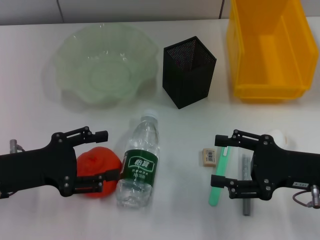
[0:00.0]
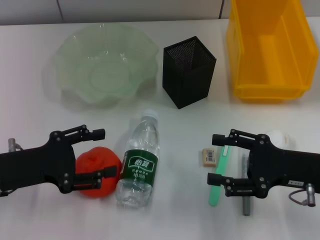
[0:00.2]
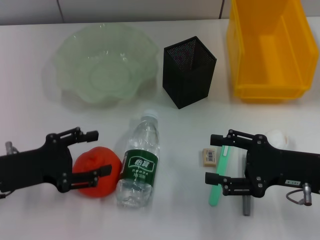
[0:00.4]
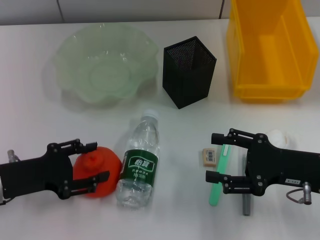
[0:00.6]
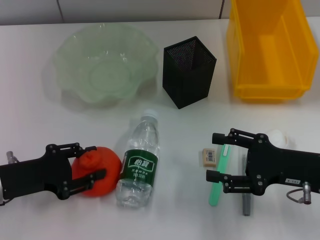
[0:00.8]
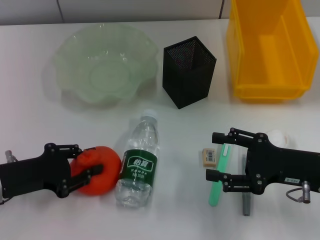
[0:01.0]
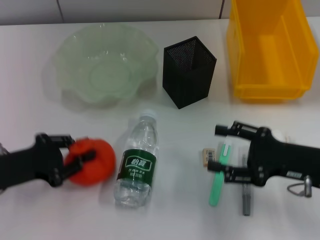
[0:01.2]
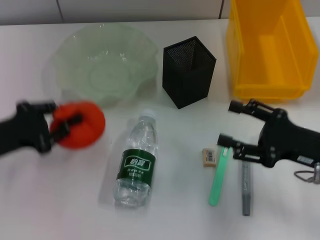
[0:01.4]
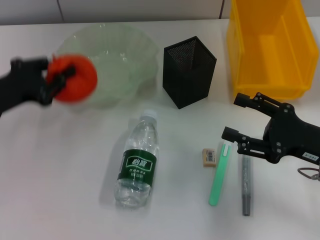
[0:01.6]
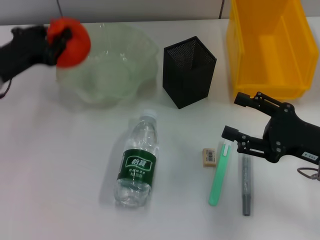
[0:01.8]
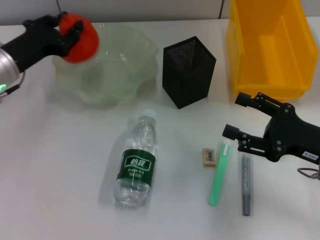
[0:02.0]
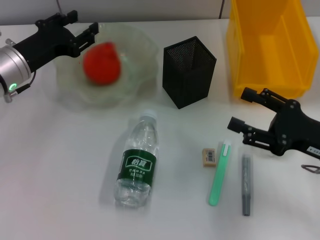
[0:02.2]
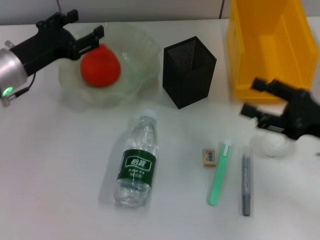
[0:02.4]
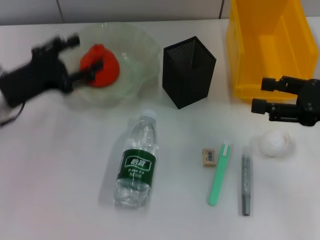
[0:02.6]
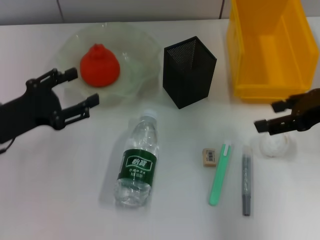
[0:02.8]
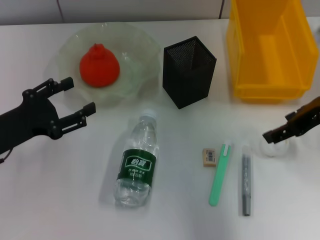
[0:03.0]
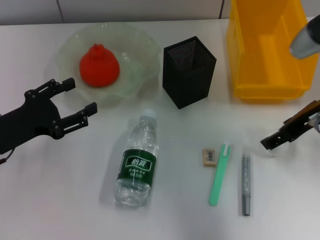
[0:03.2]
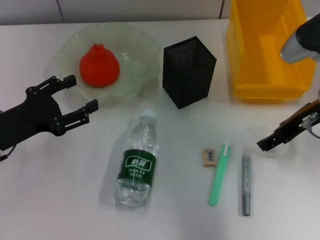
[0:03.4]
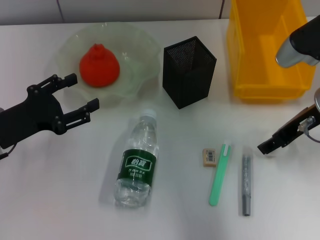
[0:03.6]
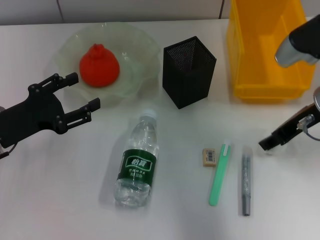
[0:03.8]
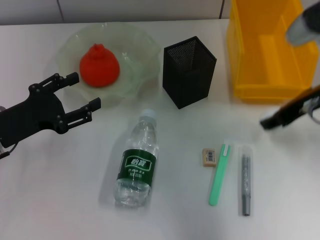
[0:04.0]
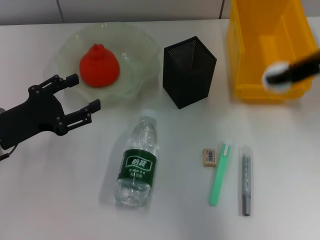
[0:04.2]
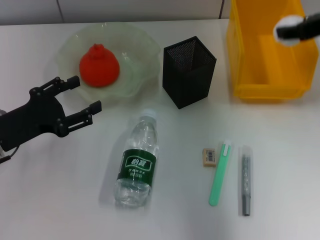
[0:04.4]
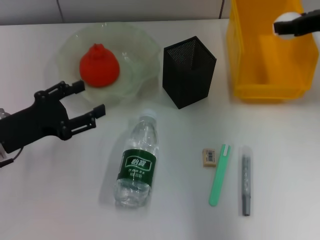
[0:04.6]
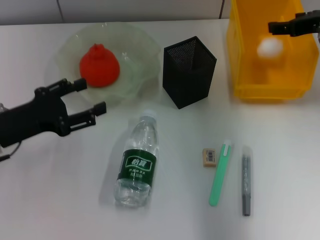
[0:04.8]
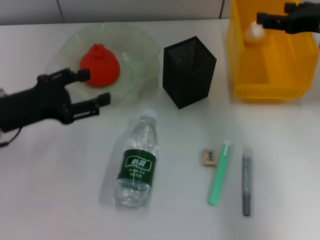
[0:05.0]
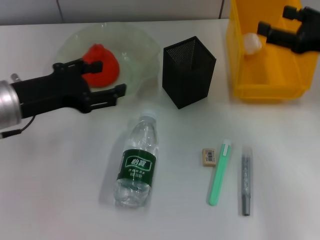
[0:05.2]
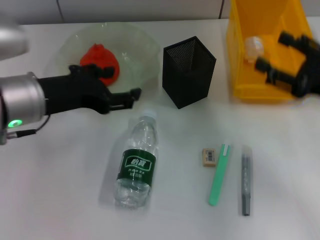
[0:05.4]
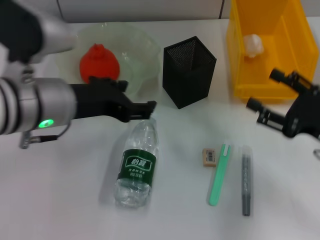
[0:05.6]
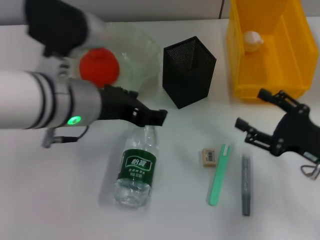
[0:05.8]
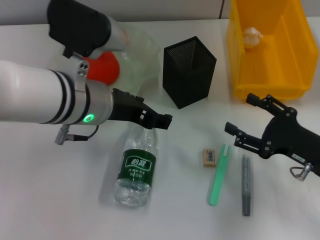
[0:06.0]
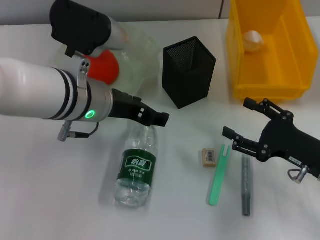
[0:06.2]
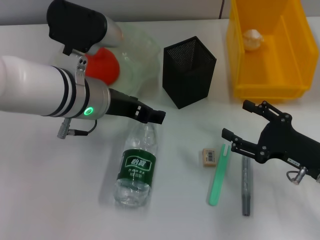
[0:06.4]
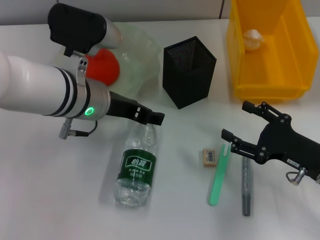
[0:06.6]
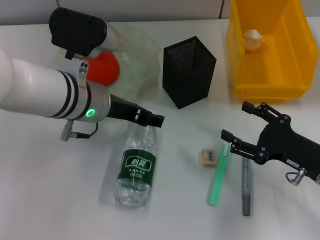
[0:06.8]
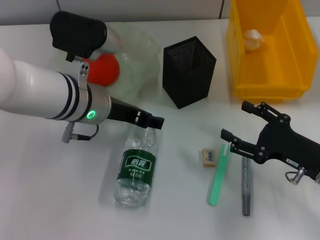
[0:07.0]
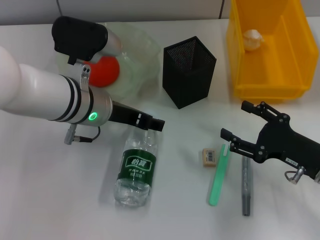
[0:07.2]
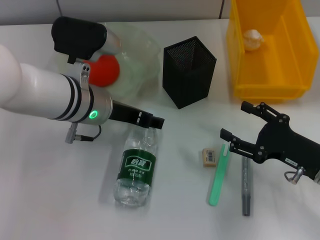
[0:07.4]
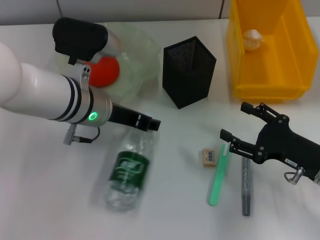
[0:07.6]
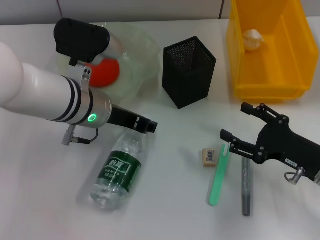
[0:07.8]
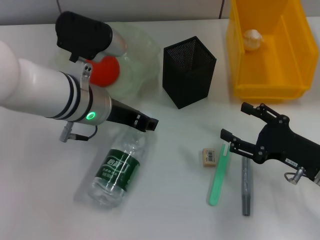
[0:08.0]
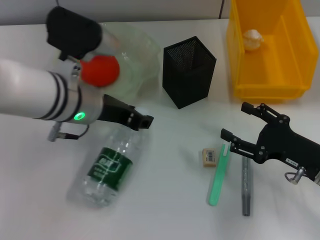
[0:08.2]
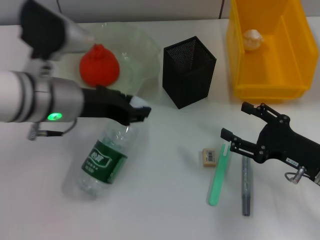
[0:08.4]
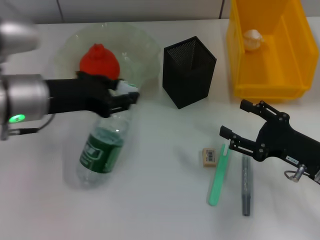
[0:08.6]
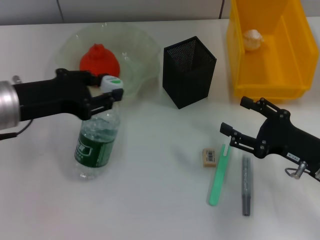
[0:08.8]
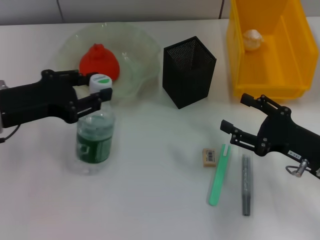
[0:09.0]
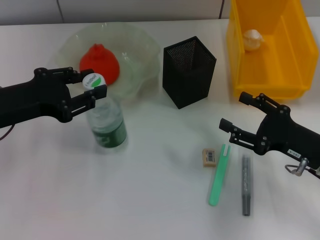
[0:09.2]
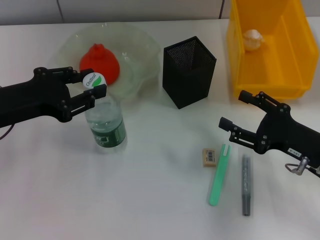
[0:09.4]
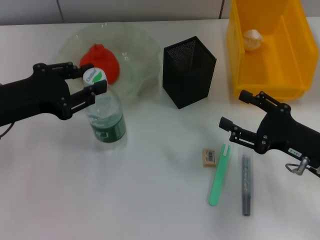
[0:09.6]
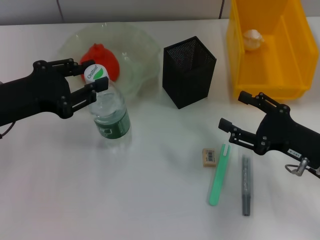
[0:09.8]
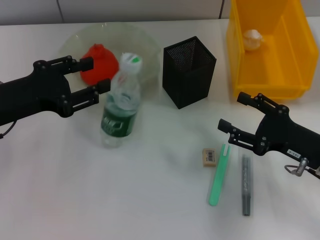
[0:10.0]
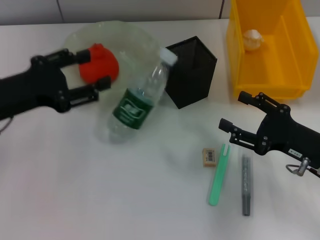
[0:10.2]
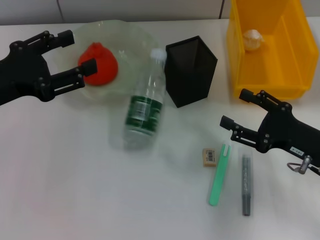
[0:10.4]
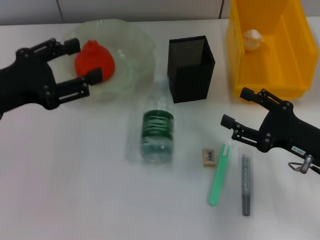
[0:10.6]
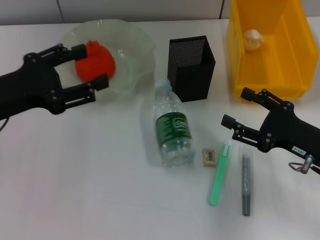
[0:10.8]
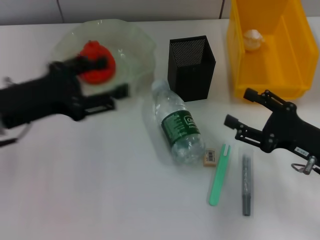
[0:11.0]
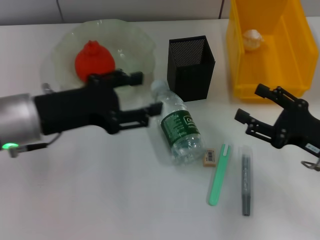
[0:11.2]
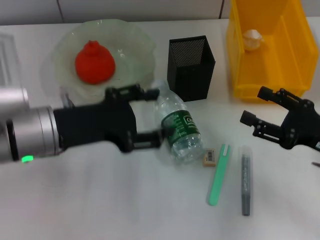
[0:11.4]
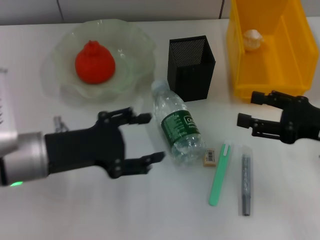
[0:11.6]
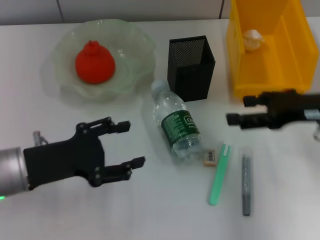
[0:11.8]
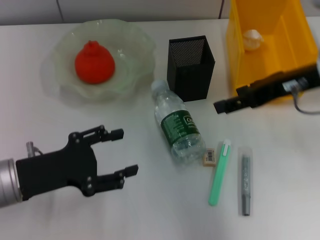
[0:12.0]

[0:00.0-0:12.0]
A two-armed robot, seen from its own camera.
Step, 0.0 to 0.8 s: Grab the orange with the left hand.
Step, 1.0 to 2.4 s: Place the orange into the fruit bowl with the left hand.
Step, 2.6 to 3.6 s: Grab the paper ball with the right hand.
Step, 3.8 to 4.8 s: Place the paper ball into the trash can with the right hand.
0.0 to 1.6 s: The left gripper shifts roughly 5 cm forward, and closes its fingers.
1.6 to 3.0 s: The right gripper shifts about 15 cm upward and forward. Meanwhile the left gripper moves some 5 cm forward and comes back, and opens up.
3.0 to 4.4 s: The right gripper heads upward, covering roughly 5 cm, and closes up.
4.4 to 6.0 s: The right gripper shifts about 25 cm downward and backward, and opens up. The left gripper travels to the right and upward by roughly 20 cm.
6.0 to 7.6 s: The left gripper changes place by approximately 5 cm.
7.6 to 9.0 s: The left gripper shifts some 15 cm to the left and backward, and closes its fingers.
9.0 to 10.4 s: The left gripper opens up.
10.4 to 12.0 s: The left gripper goes roughly 10 cm downward; the right gripper moves upward and forward, some 20 cm.

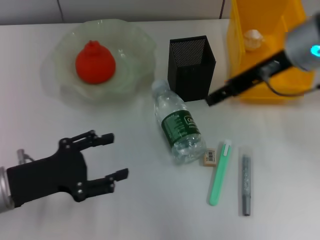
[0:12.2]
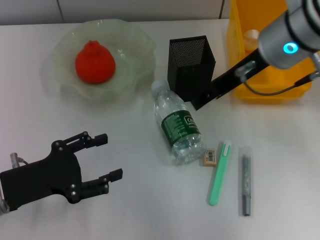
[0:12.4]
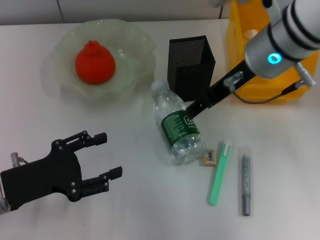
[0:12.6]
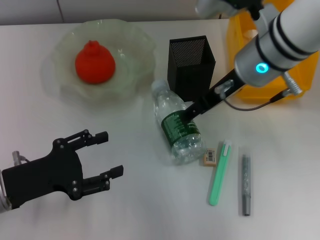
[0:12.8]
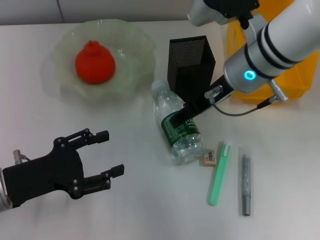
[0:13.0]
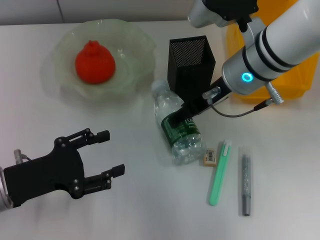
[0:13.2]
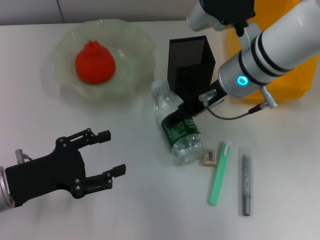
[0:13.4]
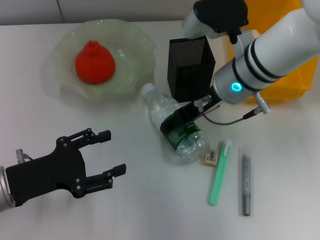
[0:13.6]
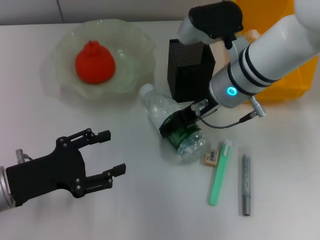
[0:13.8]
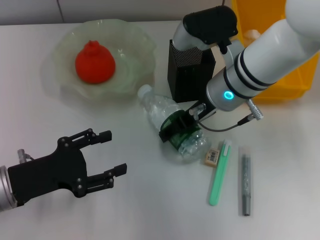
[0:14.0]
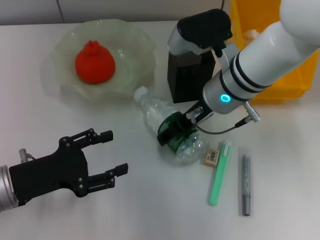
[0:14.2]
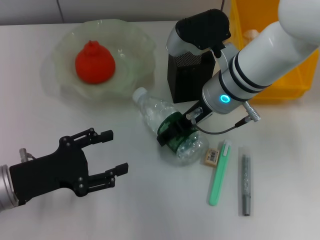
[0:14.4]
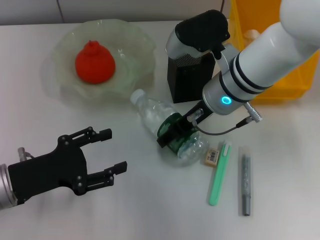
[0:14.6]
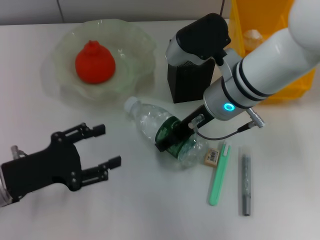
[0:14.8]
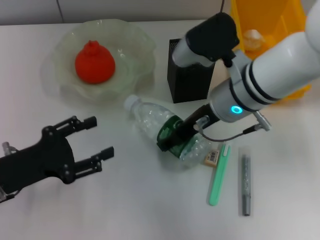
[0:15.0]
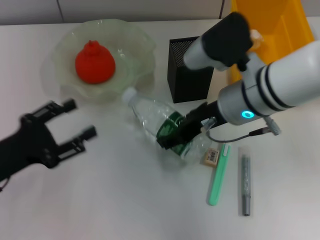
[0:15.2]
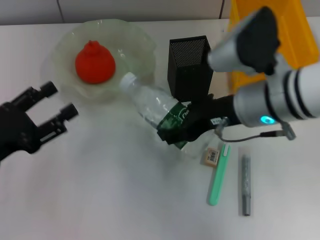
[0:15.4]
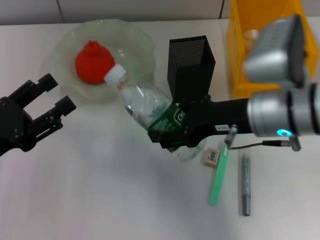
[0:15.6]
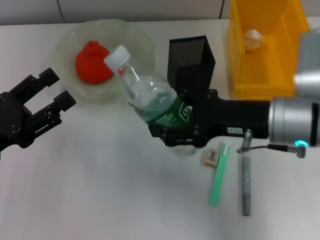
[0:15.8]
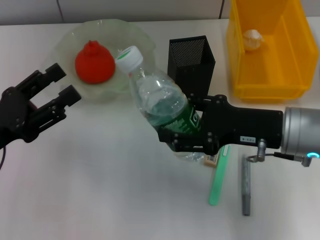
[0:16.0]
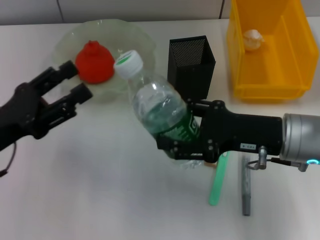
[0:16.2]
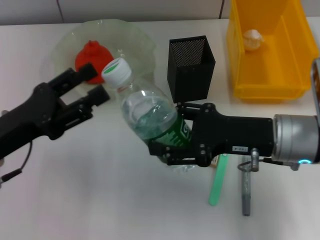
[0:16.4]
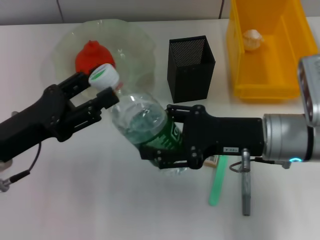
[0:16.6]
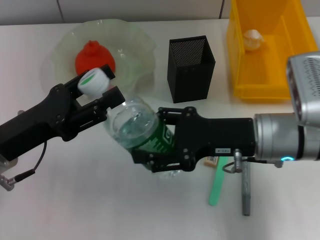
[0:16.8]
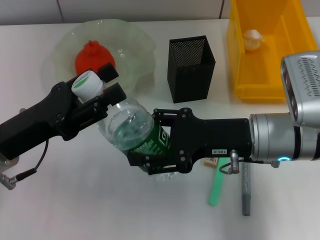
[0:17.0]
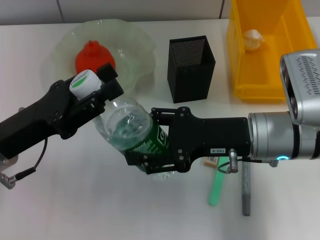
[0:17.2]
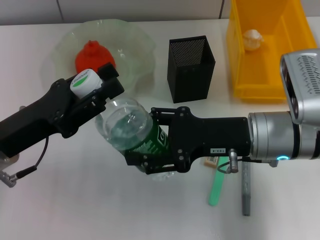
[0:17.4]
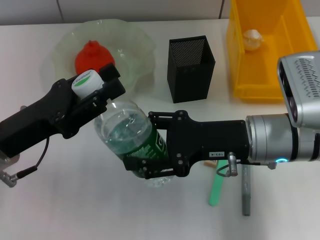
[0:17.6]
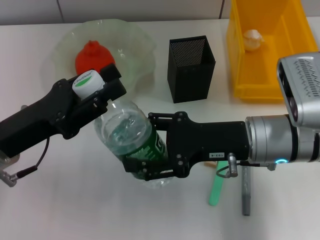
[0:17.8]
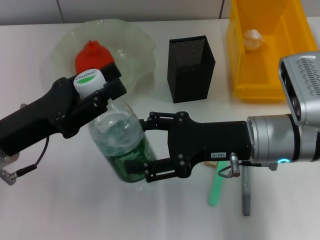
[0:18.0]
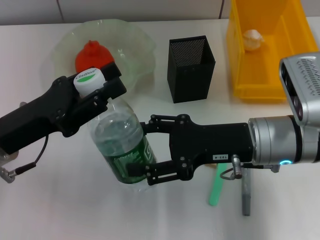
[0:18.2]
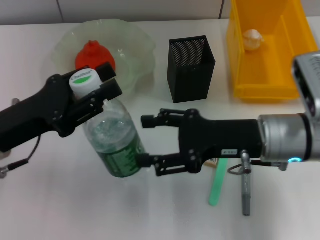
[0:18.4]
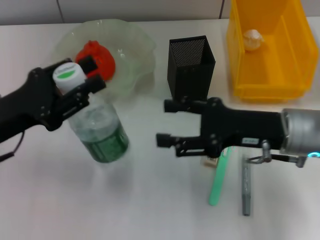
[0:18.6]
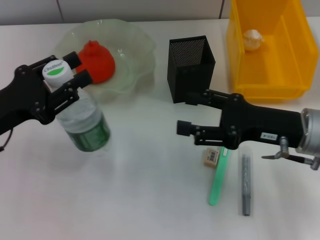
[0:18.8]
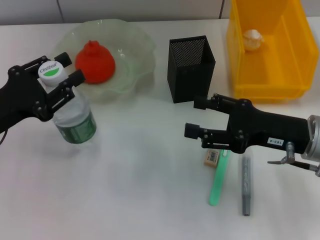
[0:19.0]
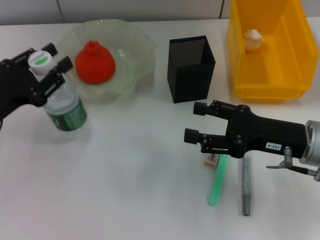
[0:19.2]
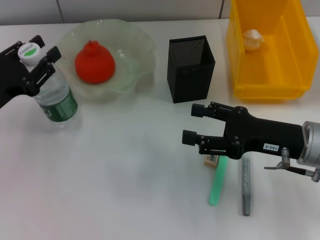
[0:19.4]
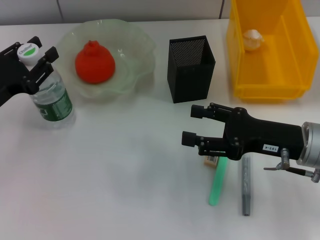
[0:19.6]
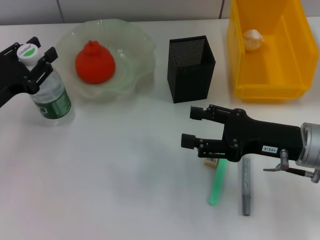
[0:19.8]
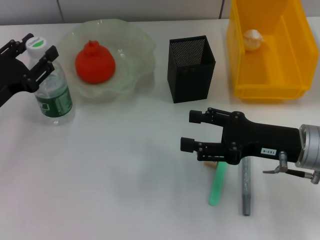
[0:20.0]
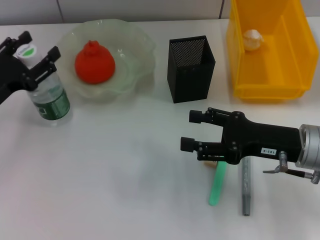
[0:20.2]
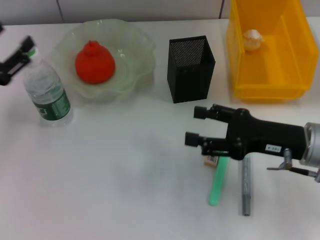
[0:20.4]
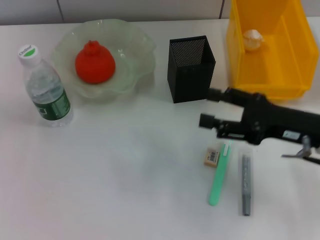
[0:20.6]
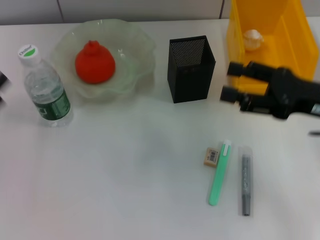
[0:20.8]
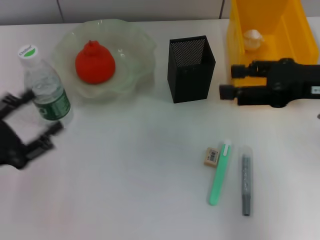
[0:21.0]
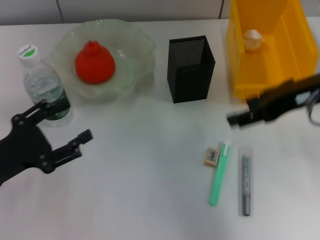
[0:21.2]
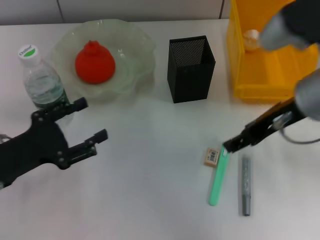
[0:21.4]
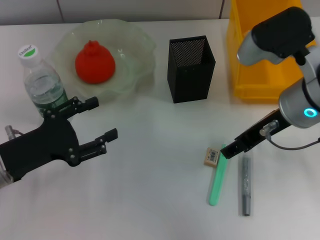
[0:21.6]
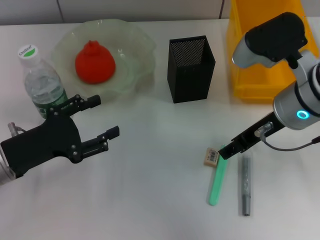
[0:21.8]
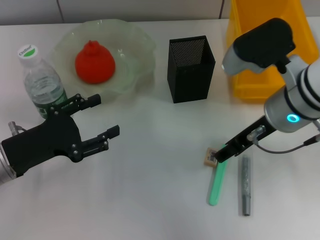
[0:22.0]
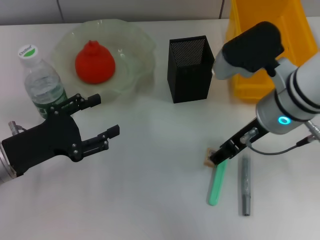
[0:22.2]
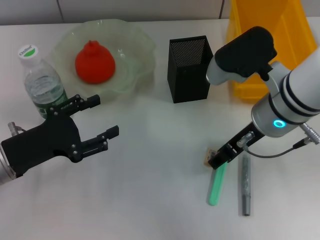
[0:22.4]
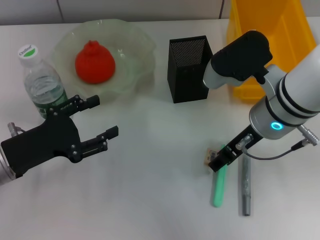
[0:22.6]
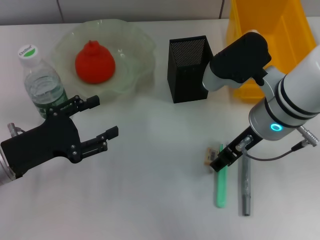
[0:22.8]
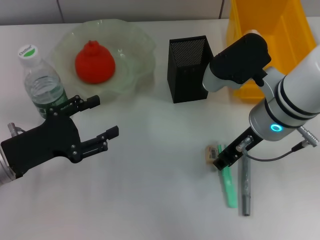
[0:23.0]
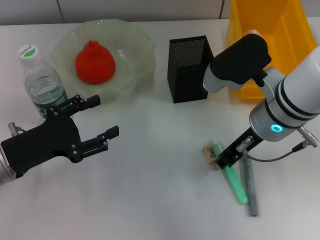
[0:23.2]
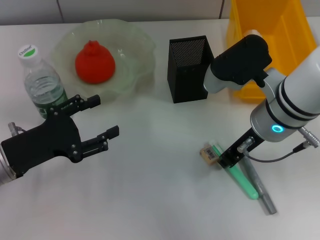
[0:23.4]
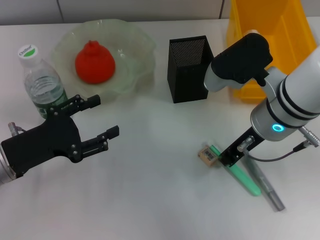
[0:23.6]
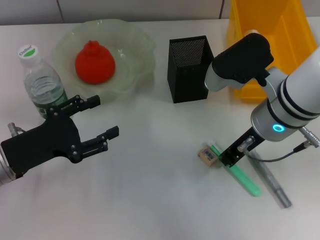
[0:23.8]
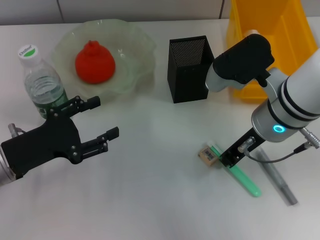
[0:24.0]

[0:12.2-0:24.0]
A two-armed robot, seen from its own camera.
Step, 12.2 to 14.8 s: Grab the water bottle with the right hand.
Step, 15.0 to 18.0 s: Pass the water bottle from the right hand to the left hand.
Step, 18.2 to 20.0 s: Place the water bottle on the table with the left hand.
12.2 to 13.6 s: The right gripper goes about 10 cm downward and to the left.
15.2 to 16.6 s: The left gripper changes place by about 5 cm; the right gripper moves to the right and backward, some 10 cm.
16.6 to 18.2 s: The grippers move only a little.
18.2 to 19.6 s: The right gripper travels to the right by about 5 cm, while the left gripper travels to the left by approximately 5 cm.
19.6 to 21.0 s: The left gripper is displaced backward by roughly 10 cm, and opens up; the right gripper travels upward by approximately 10 cm.
21.0 to 22.6 s: The left gripper goes roughly 5 cm to the right, while the right gripper moves to the left, roughly 10 cm.
22.6 to 24.0 s: The right gripper closes its fingers.
